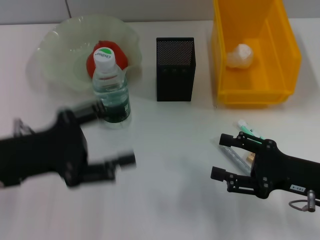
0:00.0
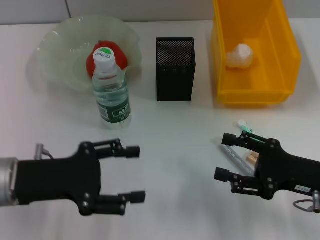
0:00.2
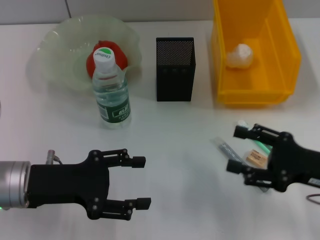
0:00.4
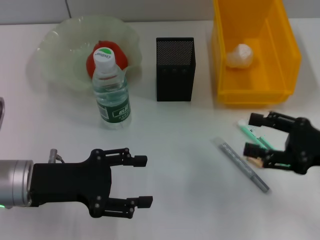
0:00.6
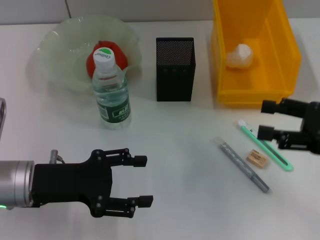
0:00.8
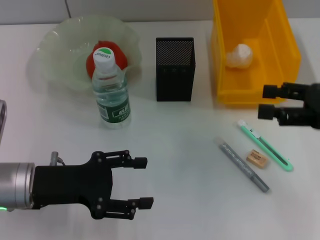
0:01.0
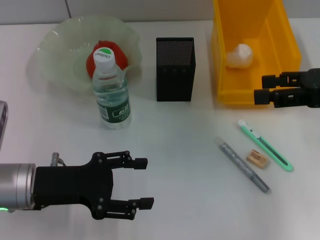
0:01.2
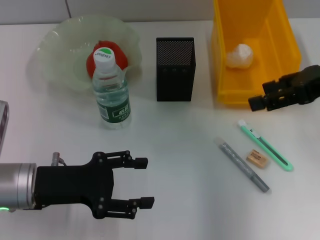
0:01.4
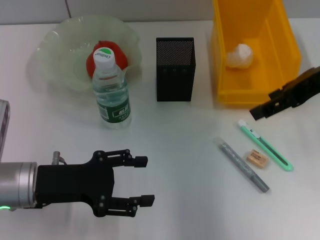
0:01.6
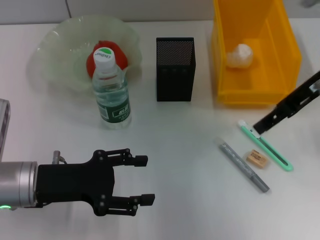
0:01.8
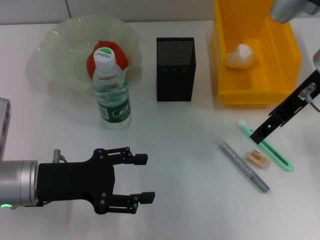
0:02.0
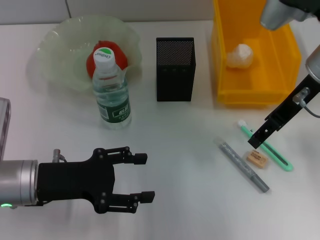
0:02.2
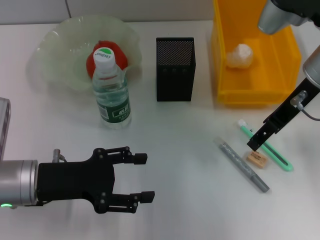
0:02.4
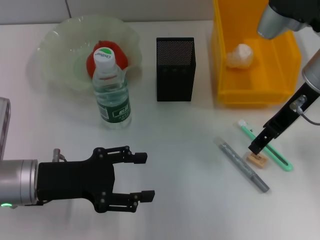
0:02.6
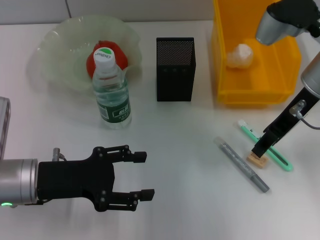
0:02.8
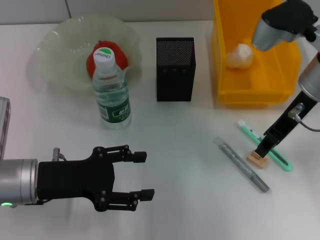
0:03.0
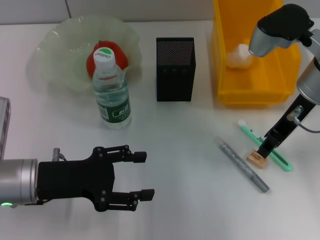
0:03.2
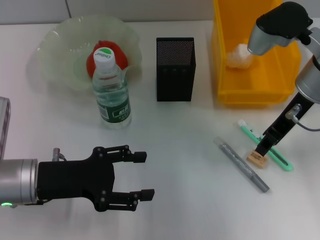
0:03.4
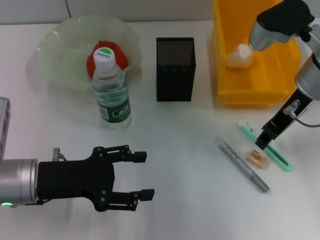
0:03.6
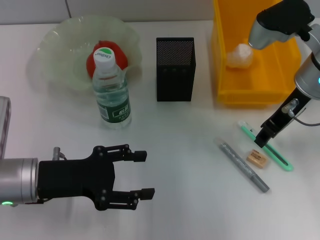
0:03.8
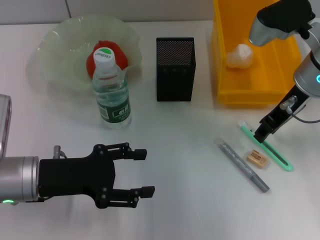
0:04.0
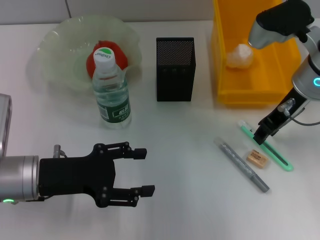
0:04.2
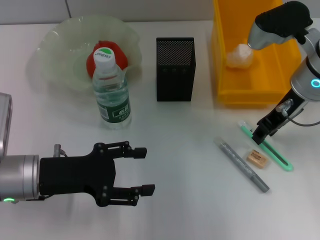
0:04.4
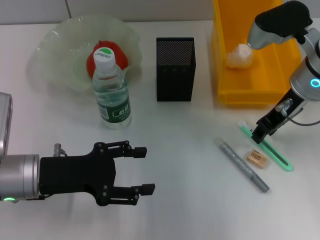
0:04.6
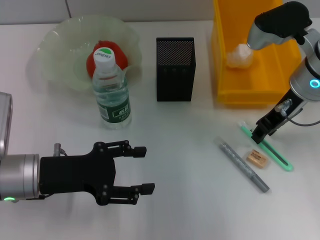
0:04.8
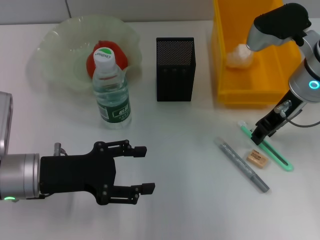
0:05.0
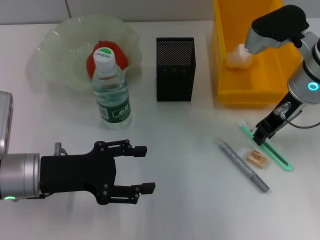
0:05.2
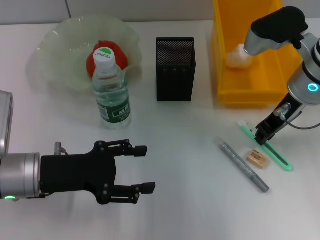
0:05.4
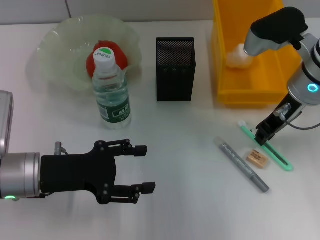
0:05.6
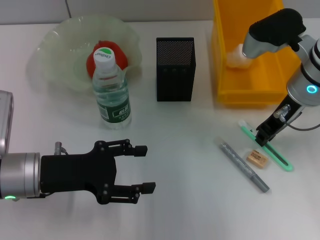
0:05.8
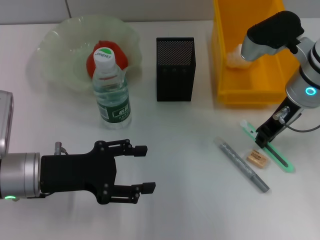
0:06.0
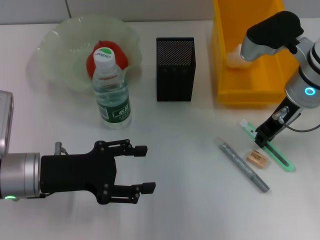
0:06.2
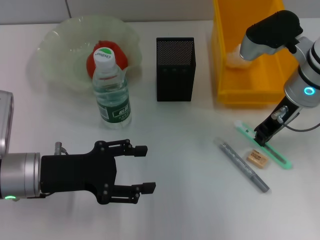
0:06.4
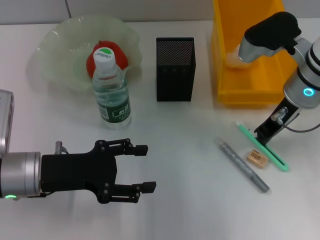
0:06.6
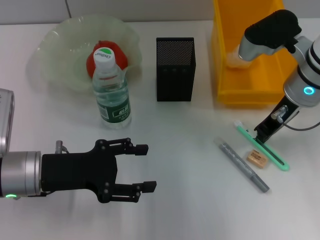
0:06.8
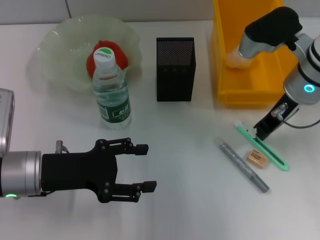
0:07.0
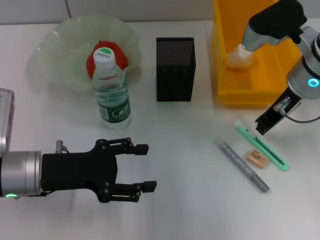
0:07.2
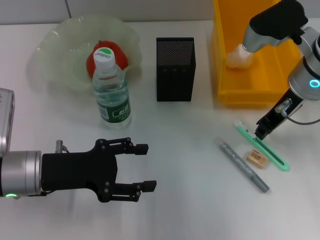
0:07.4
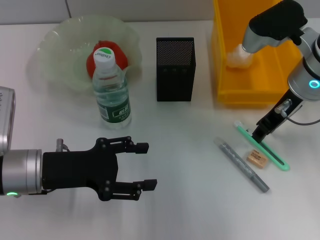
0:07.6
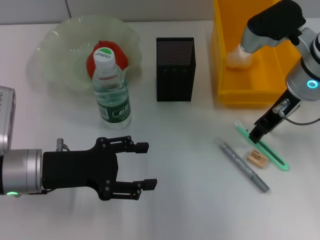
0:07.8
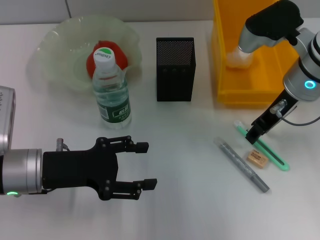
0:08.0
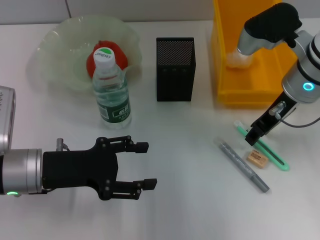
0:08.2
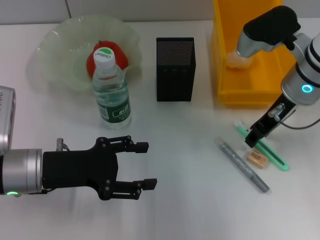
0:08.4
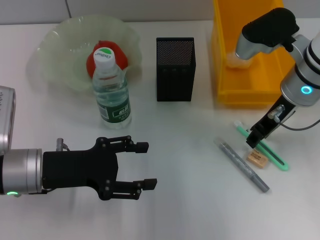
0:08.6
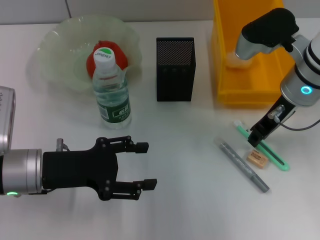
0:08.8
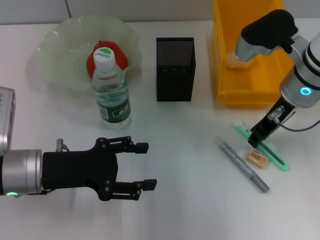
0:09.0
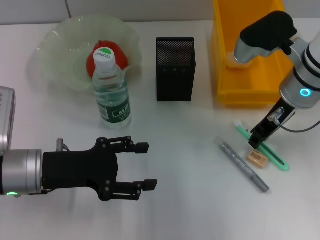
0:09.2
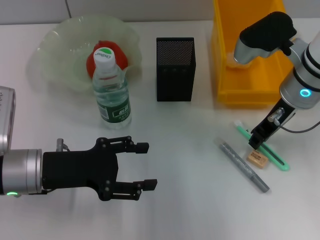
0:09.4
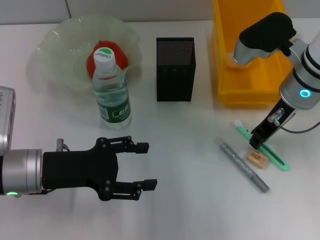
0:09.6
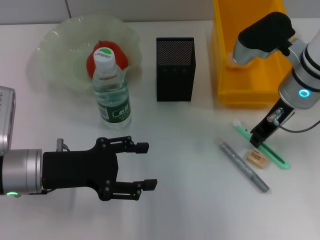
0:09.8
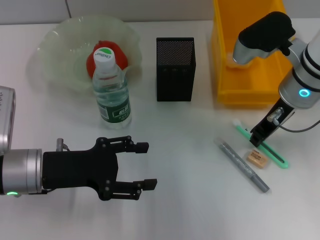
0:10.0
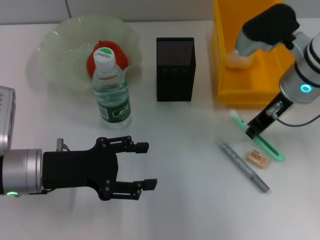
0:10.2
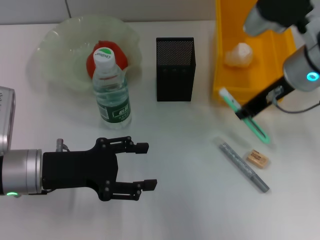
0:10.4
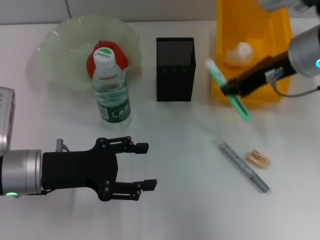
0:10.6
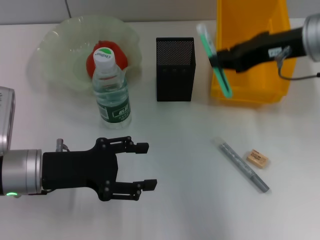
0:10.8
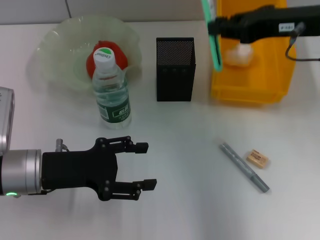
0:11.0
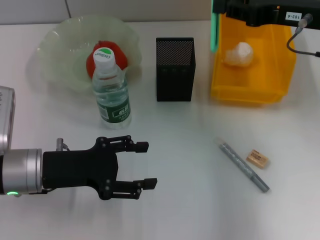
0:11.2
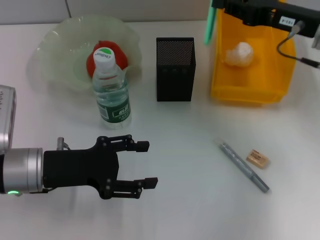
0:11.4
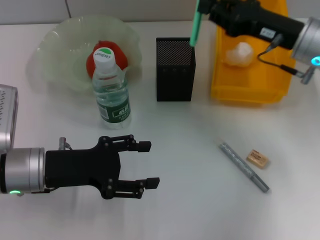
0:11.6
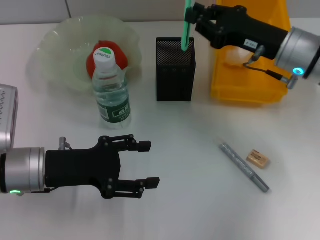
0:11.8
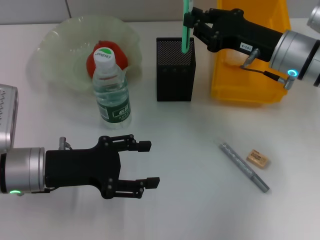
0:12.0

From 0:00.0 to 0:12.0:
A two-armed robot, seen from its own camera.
Step, from 0:00.0 to 0:09.8: Grab the blue utility knife with the right hand.
From 0:00.0 to 0:01.6: The right gripper travels upward and forward by roughly 20 cm.
From 0:01.6 to 0:03.0: The right gripper moves downward, approximately 5 cm, and closes its fingers.
From 0:03.0 to 0:04.4: There are only small adjustments of the grippers.
From 0:04.4 to 0:06.0: The two grippers keep their place.
From 0:06.0 to 0:10.4: The grippers make only small movements.
From 0:10.4 to 0:12.0: The right gripper moves downward, approximately 5 cm.

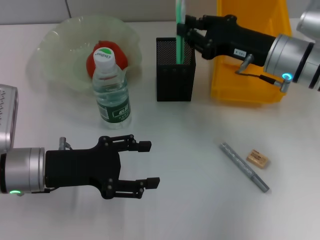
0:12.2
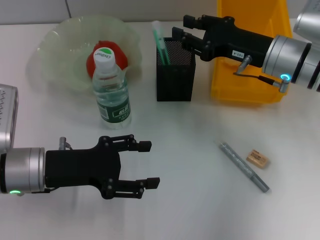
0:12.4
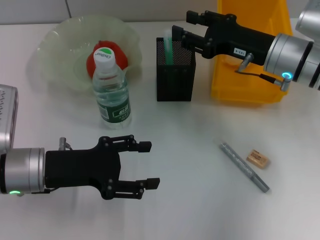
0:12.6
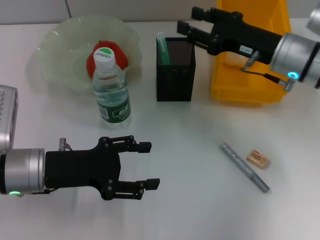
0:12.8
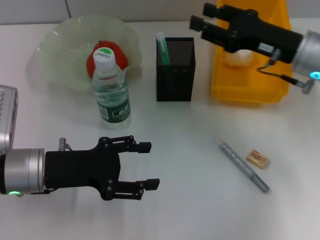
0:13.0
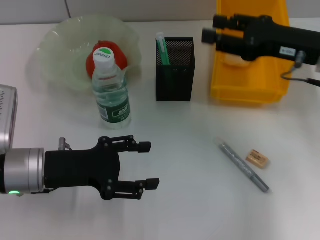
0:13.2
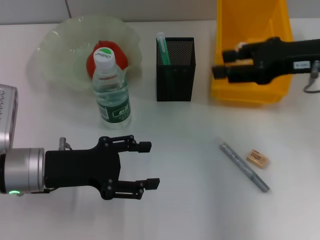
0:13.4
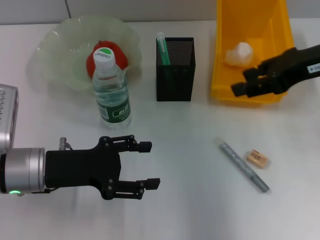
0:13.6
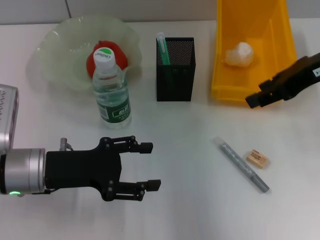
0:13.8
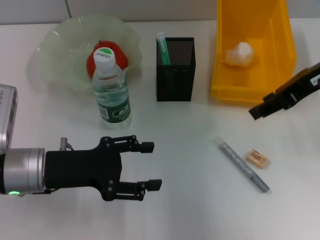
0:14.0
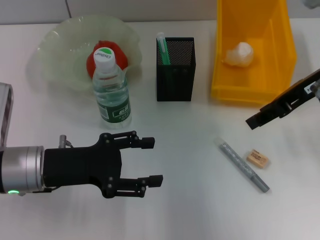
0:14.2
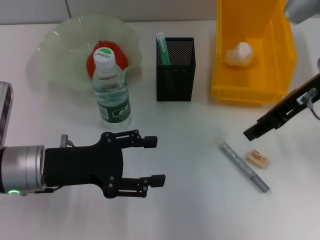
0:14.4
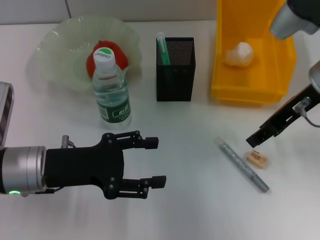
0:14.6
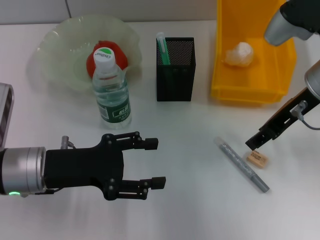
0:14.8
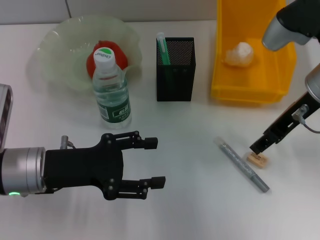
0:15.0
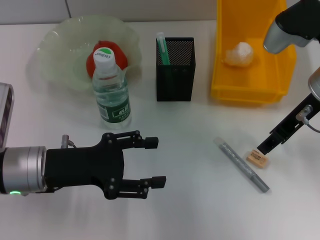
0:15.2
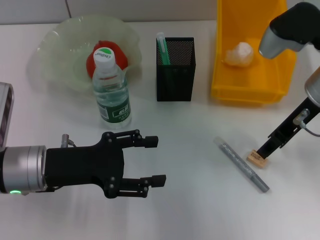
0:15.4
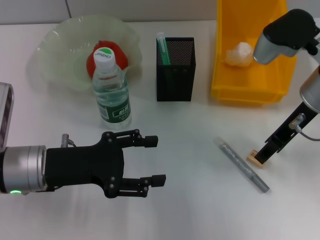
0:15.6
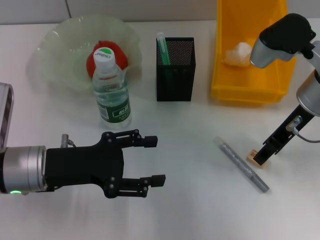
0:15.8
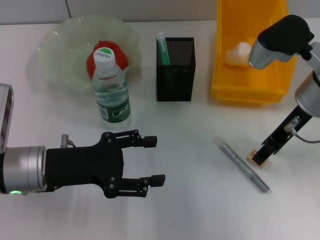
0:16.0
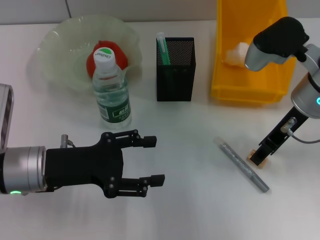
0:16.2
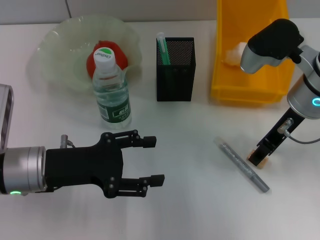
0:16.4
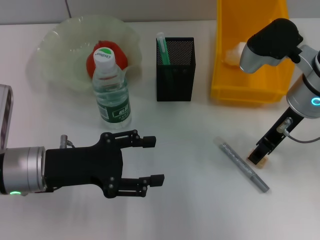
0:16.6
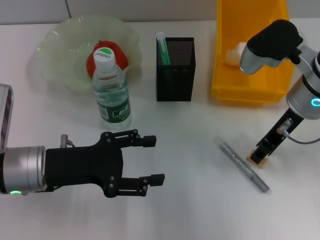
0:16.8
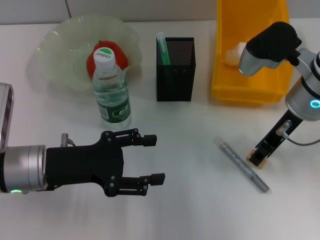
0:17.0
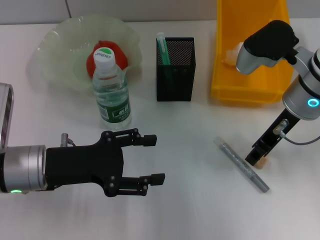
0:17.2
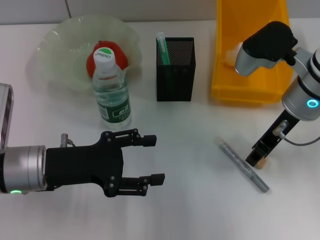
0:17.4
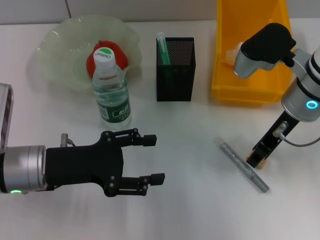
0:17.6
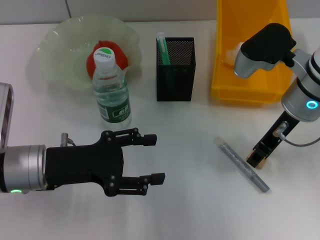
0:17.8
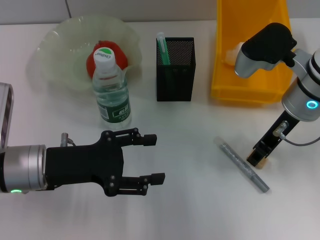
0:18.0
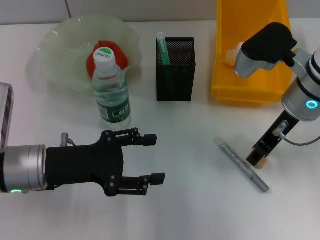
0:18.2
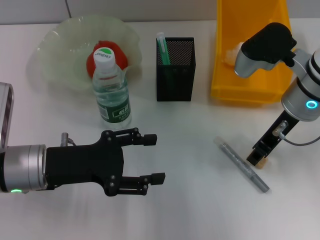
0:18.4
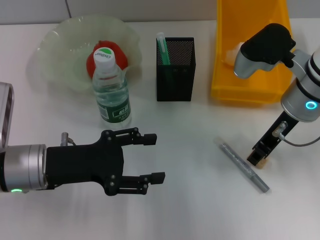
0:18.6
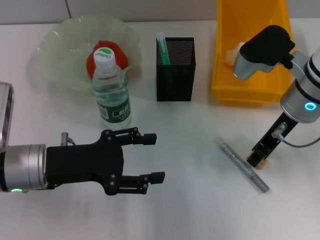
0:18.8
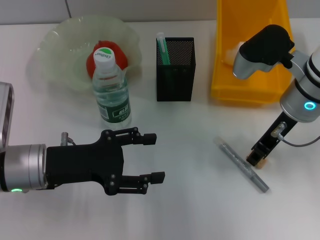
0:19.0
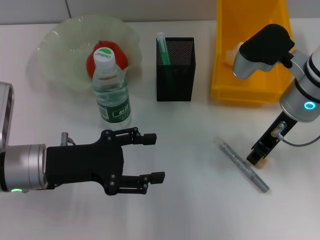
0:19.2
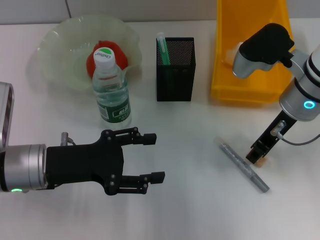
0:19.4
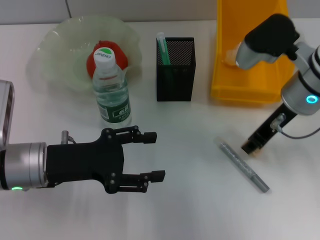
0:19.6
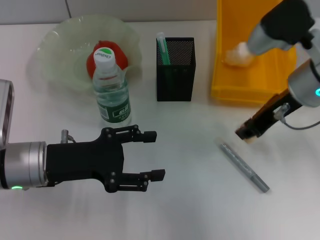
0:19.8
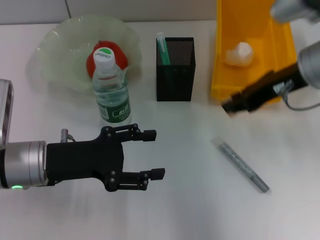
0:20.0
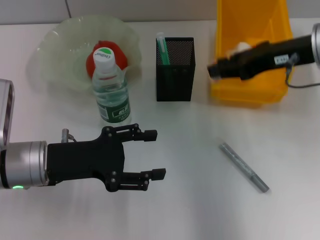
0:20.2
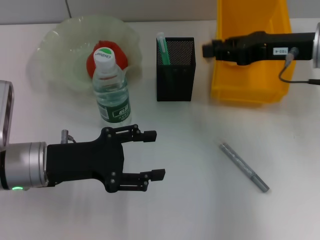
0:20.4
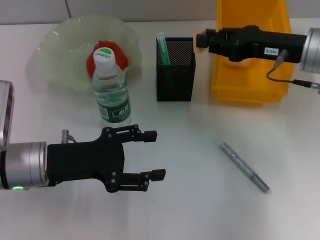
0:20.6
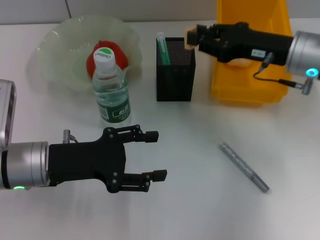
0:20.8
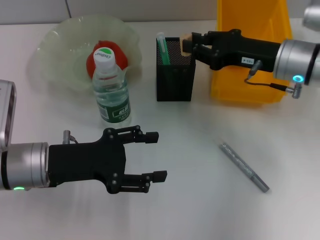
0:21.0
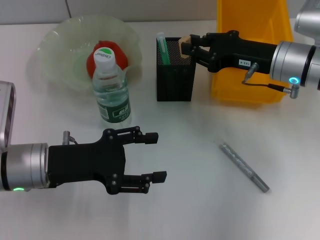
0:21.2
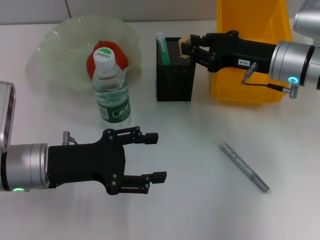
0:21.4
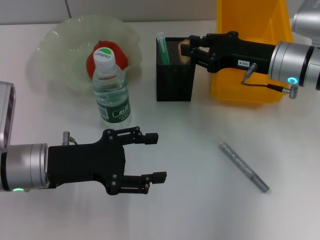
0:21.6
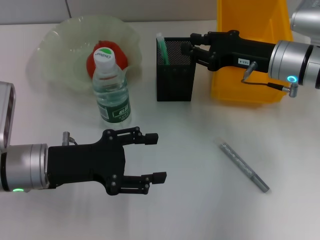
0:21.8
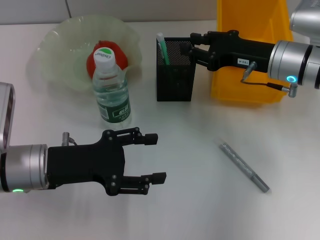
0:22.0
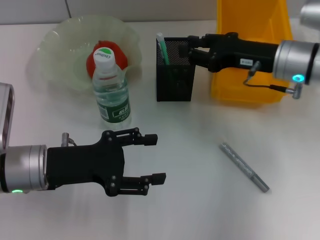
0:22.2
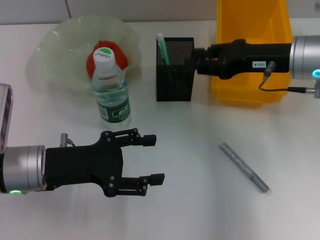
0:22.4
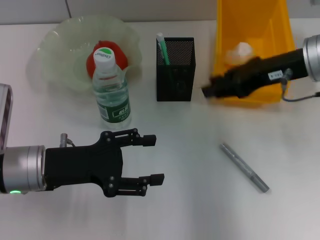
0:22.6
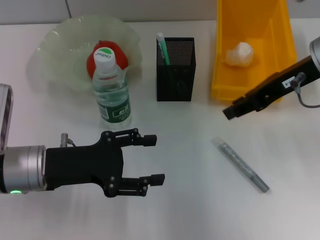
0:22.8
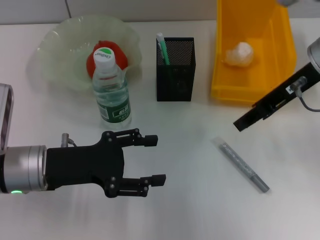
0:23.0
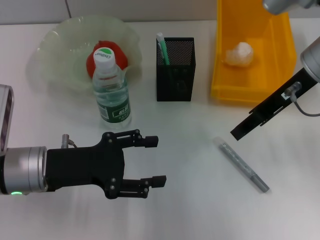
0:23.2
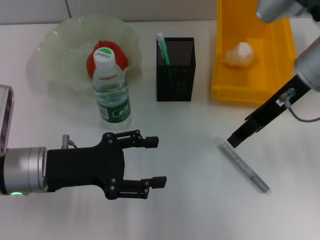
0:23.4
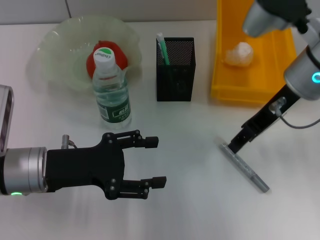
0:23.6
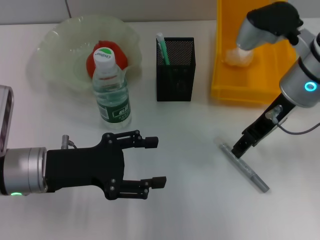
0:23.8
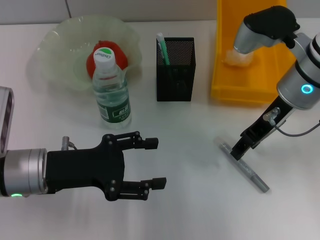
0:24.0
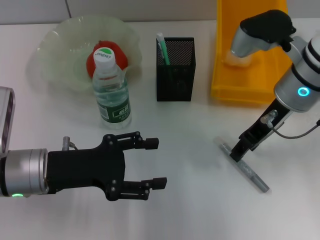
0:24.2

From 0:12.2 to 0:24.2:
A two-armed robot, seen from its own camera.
Step, from 0:12.8 to 0:19.2: Grab the eraser with the right hand.
Step, from 0:19.4 to 0:21.8: Put the eraser into the pen holder with the right hand.
From 0:12.2 to 0:13.8: The right gripper heads upward, covering about 10 cm, and opens.
From 0:13.8 to 0:15.2: The right gripper travels downward by some 5 cm.
From 0:15.2 to 0:16.6: The grippers stay close to where they were, moving slightly.
From 0:16.6 to 0:18.2: Neither gripper changes place.
From 0:18.2 to 0:19.8: The grippers make only small movements.
From 0:19.8 to 0:21.2: The right gripper travels downward by roughly 5 cm.
From 0:21.2 to 0:22.6: The right gripper moves upward, about 5 cm.
From 0:22.6 to 0:24.2: The right gripper changes place by roughly 5 cm.
